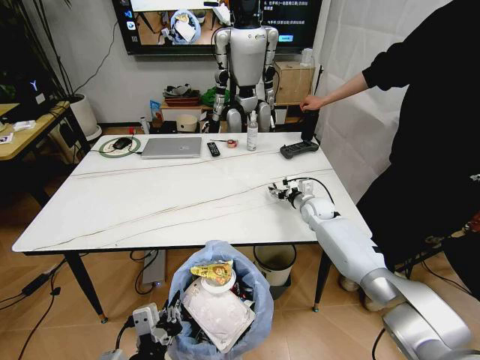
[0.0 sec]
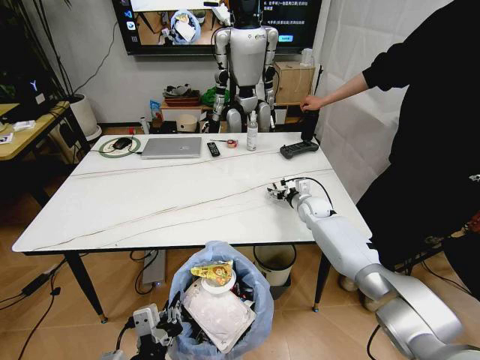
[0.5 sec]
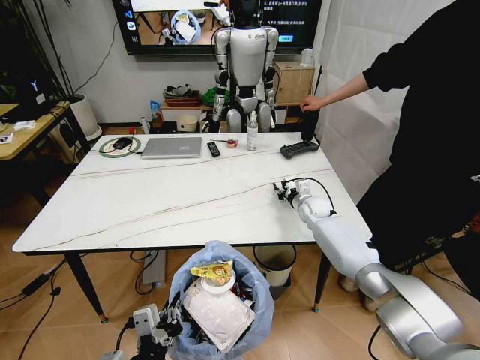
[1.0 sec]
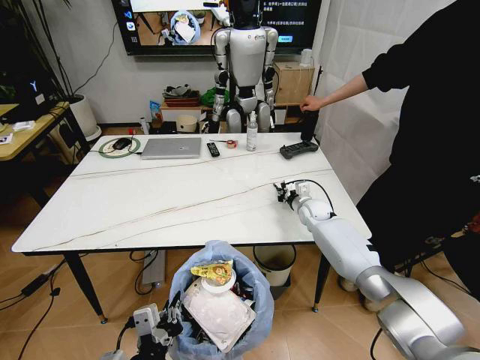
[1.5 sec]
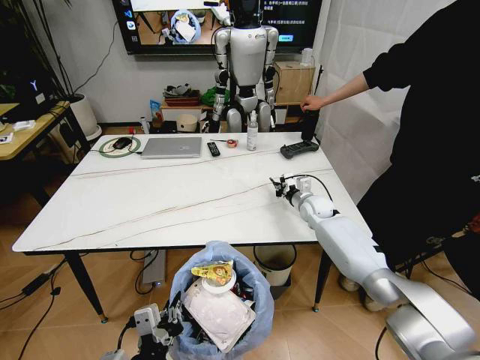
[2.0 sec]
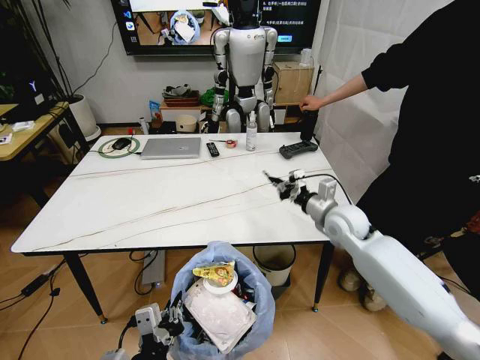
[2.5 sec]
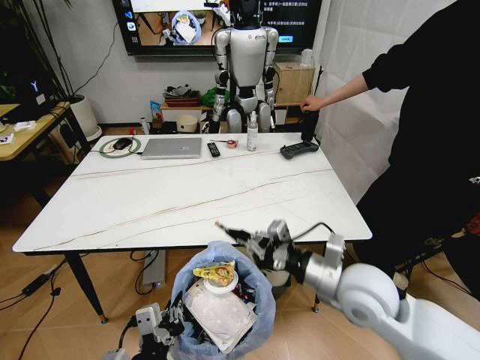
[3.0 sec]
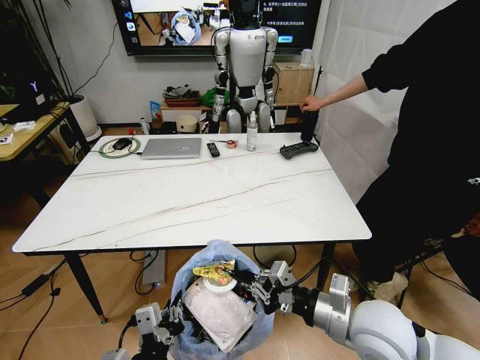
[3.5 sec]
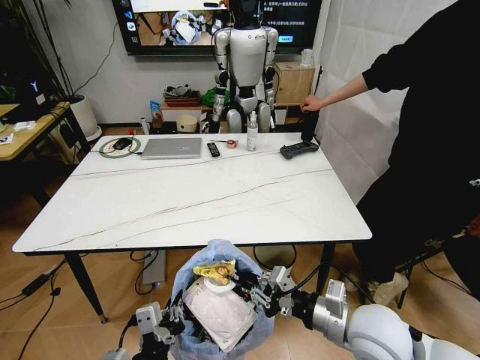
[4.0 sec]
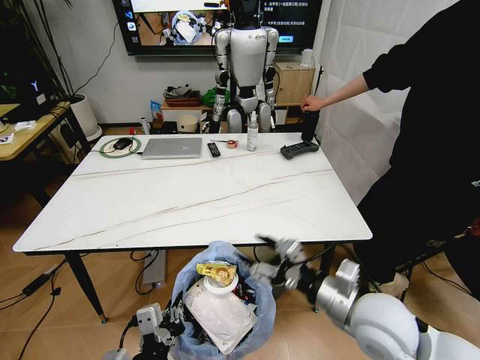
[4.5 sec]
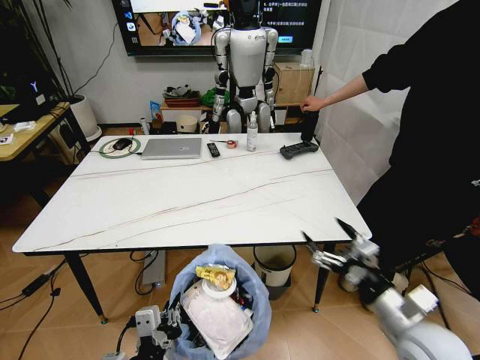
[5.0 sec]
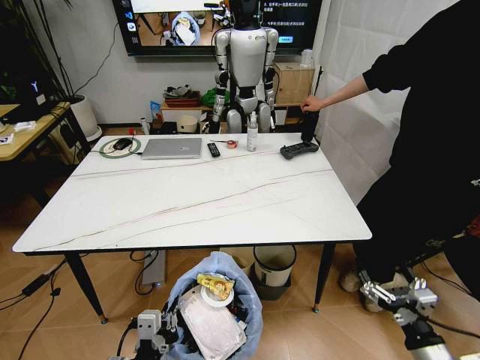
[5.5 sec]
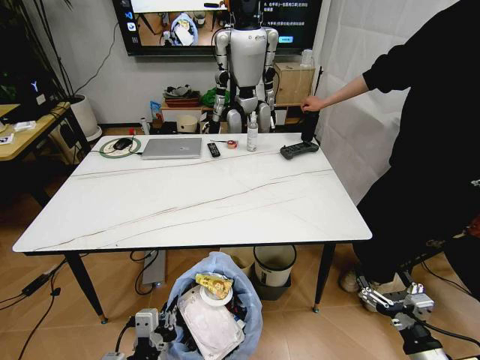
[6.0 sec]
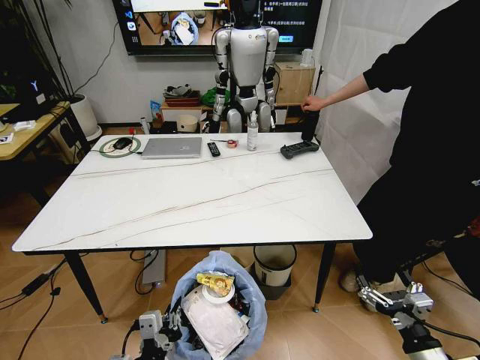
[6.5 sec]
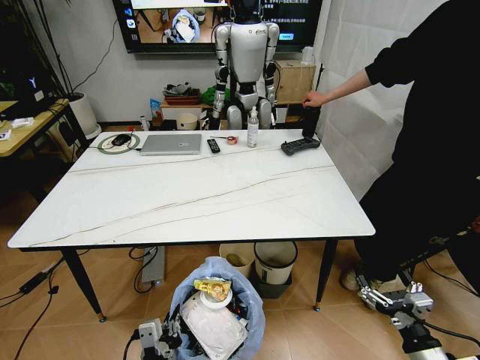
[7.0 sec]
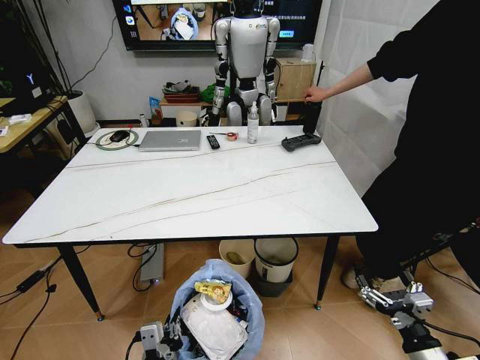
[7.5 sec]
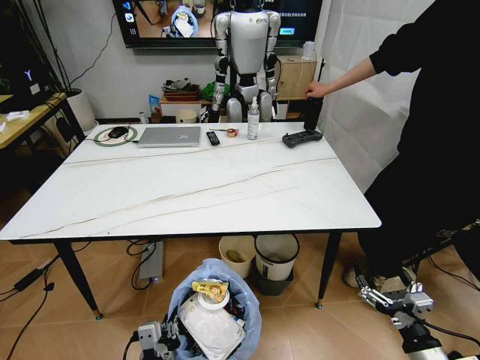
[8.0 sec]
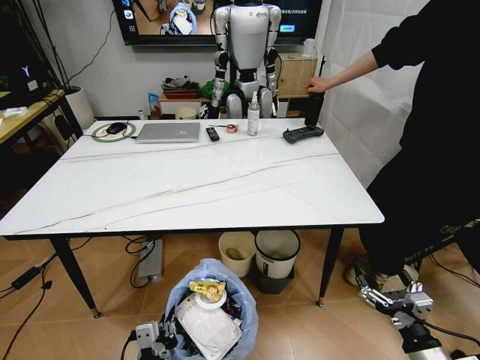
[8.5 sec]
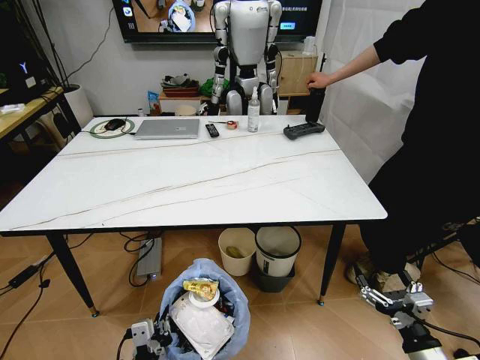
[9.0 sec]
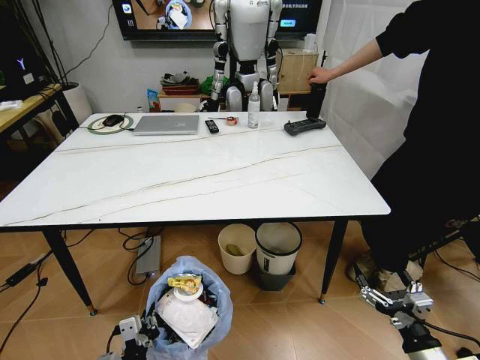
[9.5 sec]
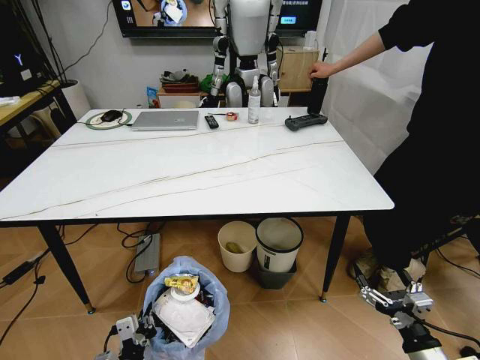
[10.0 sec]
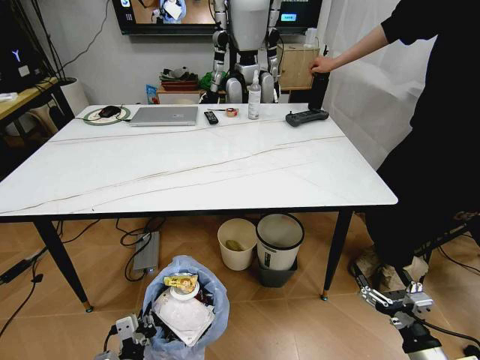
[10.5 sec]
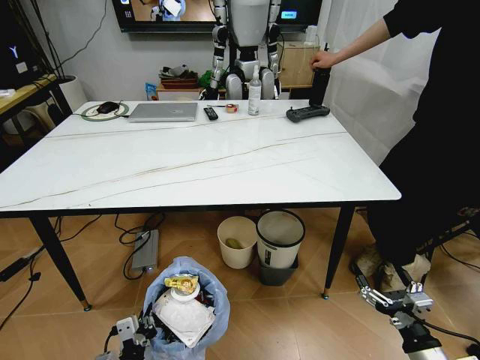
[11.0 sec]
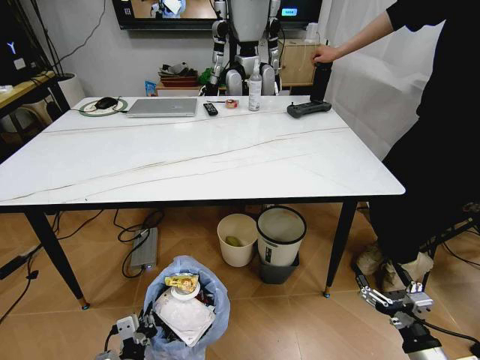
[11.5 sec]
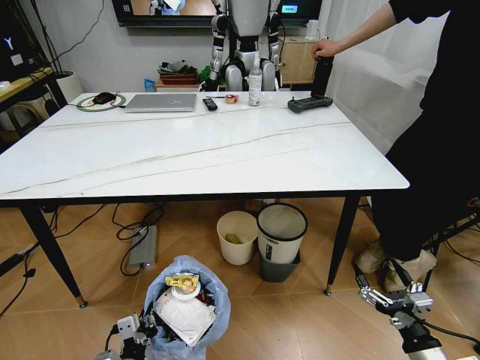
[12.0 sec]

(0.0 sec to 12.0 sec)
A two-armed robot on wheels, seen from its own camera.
Task of the whole recording: Pick up the trash bin and place the trash from the table into it.
0.0 sec - 2.0 sec: The right gripper closes its fingers.
2.0 sec - 4.0 sec: The right gripper goes some 35 cm backward.
4.0 sec - 6.0 sec: The right gripper heads to the right, backward and downward, covering some 20 cm, and opens. Meanwhile the left gripper changes place by approximately 5 cm.
8.0 sec - 10.0 sec: The left gripper goes approximately 5 cm to the left.

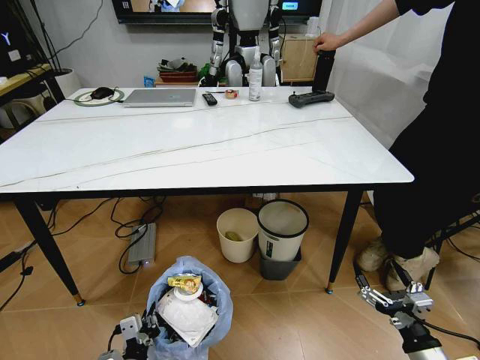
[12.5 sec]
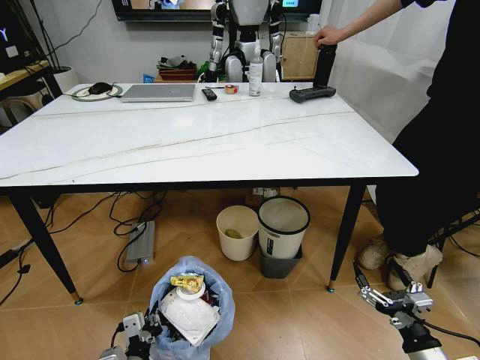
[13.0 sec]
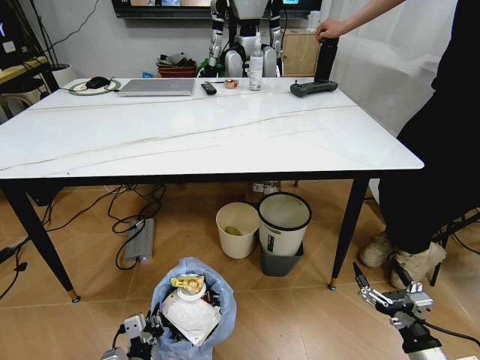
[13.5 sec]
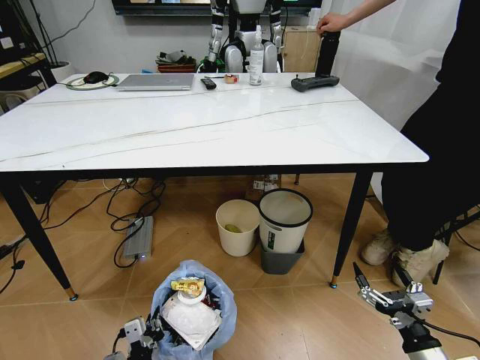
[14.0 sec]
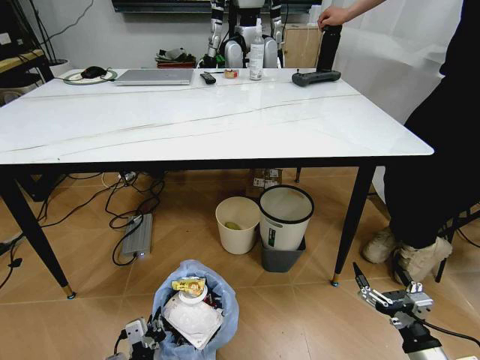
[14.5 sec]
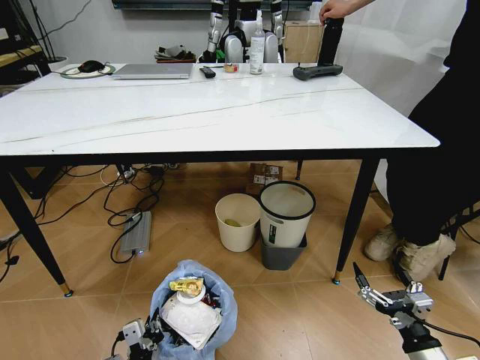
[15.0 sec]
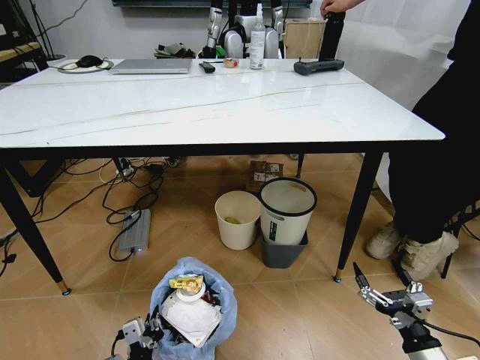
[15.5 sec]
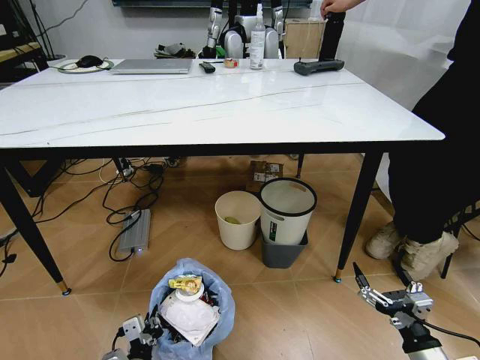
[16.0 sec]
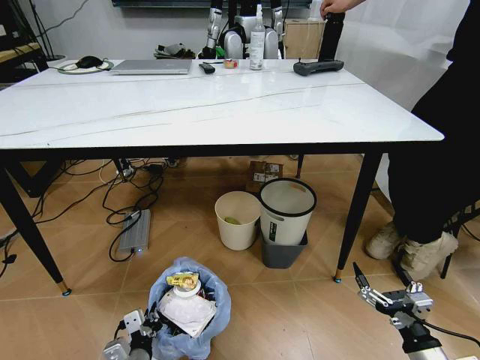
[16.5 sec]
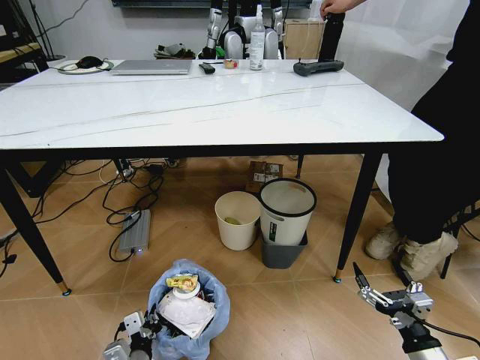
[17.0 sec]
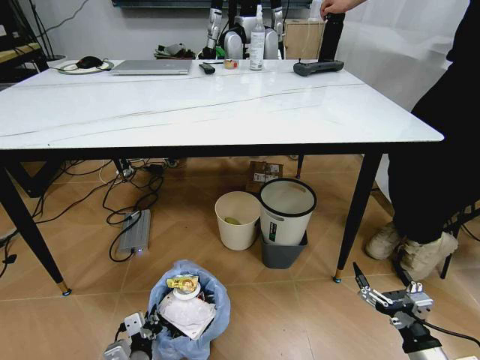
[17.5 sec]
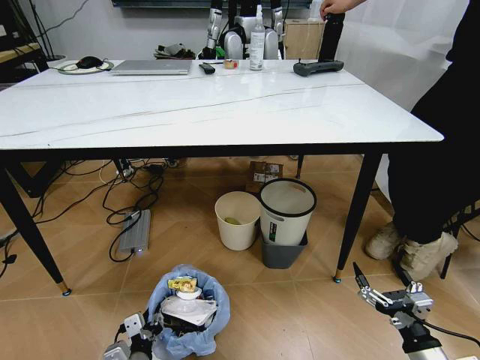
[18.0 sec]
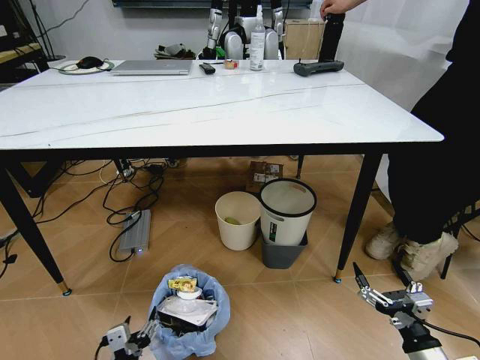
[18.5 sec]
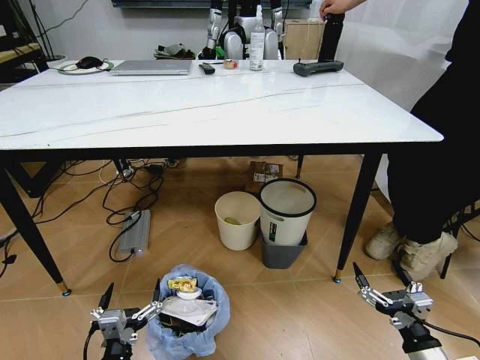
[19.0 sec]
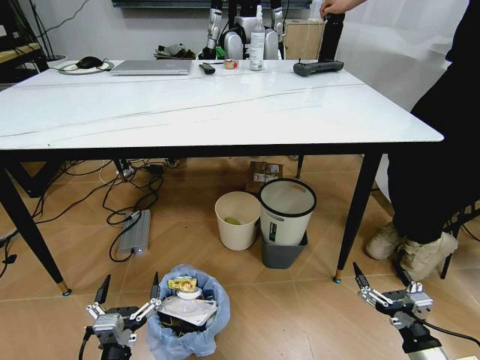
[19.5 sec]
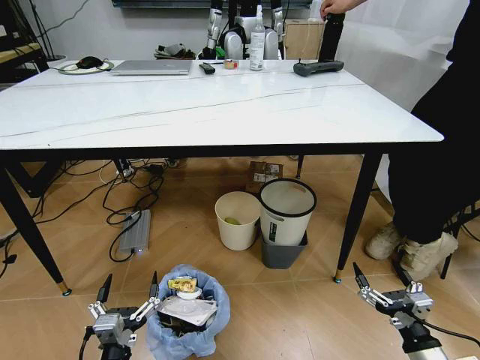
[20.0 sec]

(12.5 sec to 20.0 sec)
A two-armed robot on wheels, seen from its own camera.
Task of the whole recording: Pick up the trash bin and place the trash from the table into it.
16.5 sec - 18.0 sec: The grippers make only small movements.
18.0 sec - 20.0 sec: The left gripper shifts some 10 cm upward and backward, and opens.

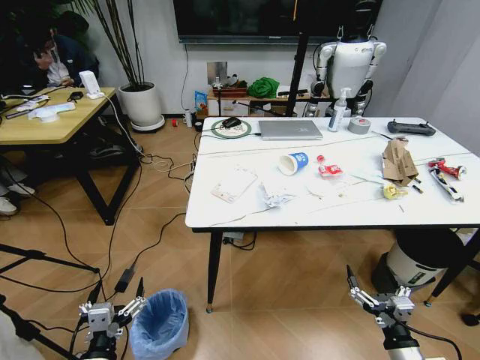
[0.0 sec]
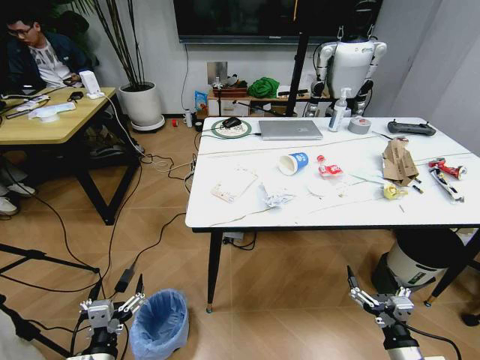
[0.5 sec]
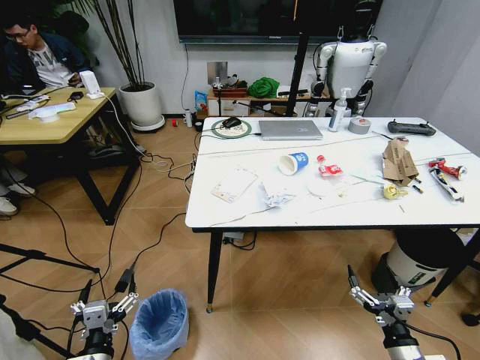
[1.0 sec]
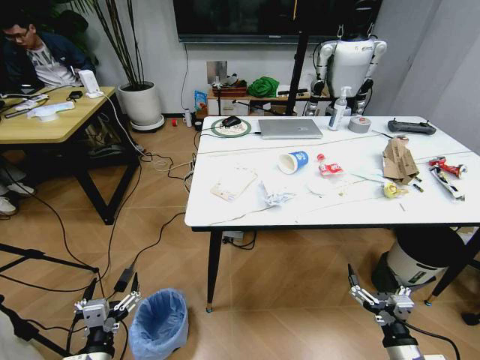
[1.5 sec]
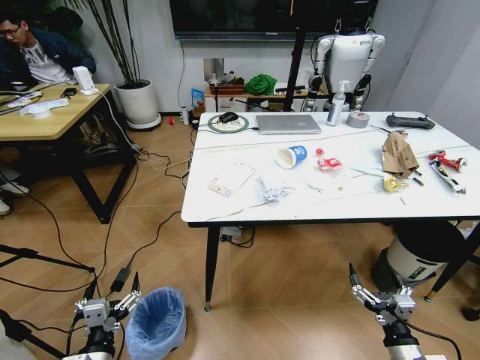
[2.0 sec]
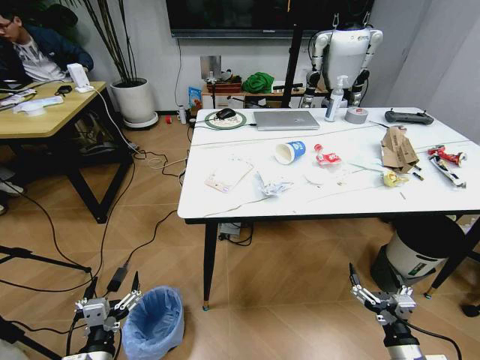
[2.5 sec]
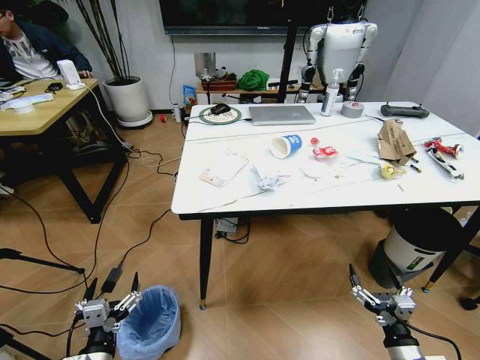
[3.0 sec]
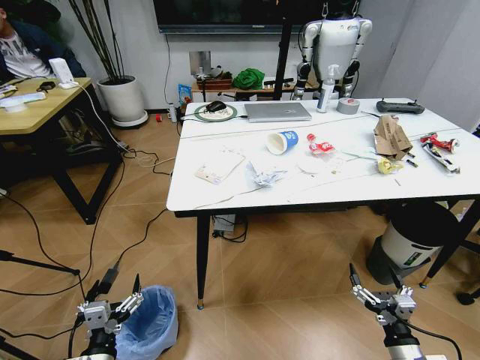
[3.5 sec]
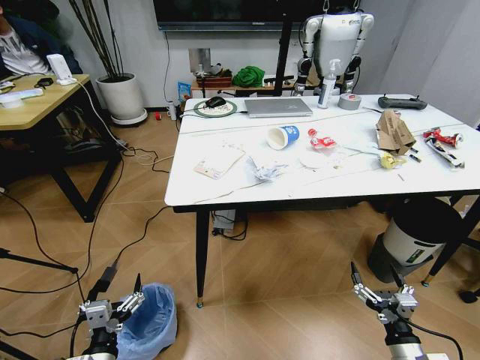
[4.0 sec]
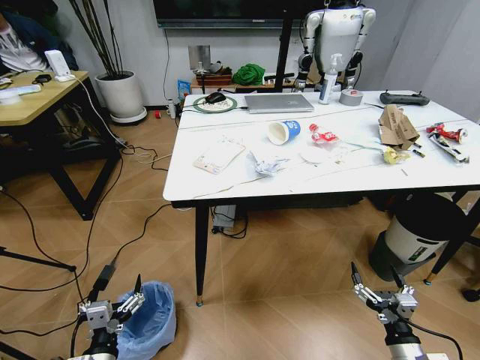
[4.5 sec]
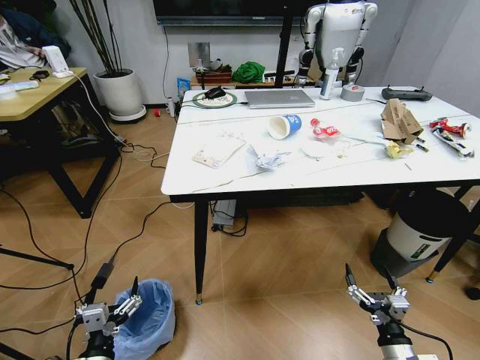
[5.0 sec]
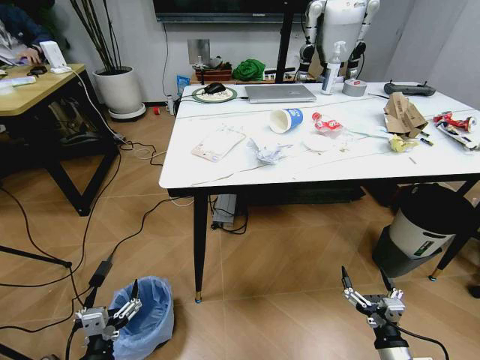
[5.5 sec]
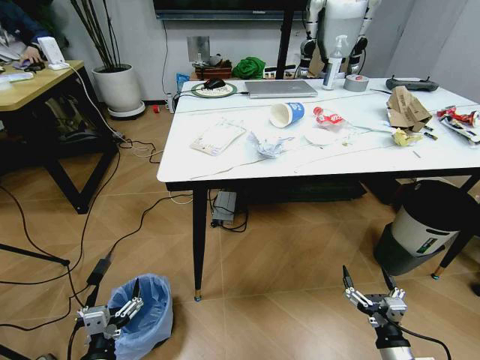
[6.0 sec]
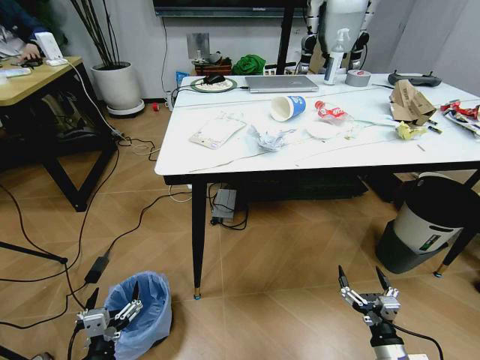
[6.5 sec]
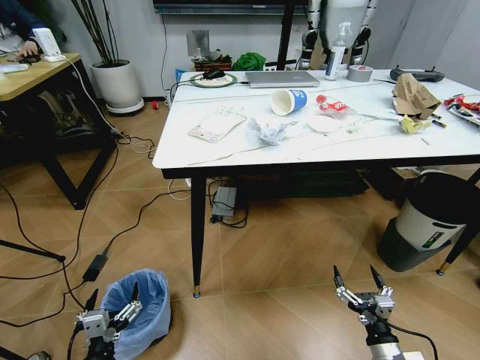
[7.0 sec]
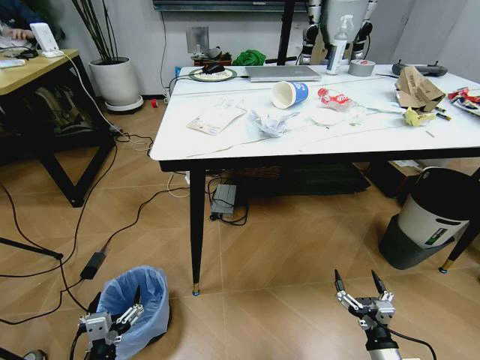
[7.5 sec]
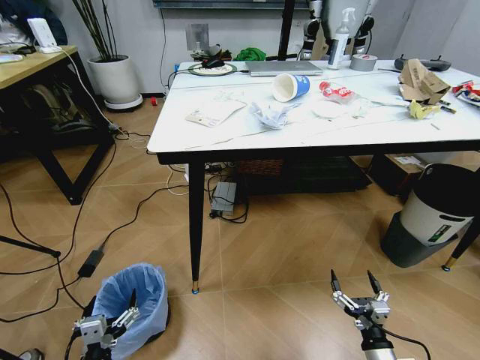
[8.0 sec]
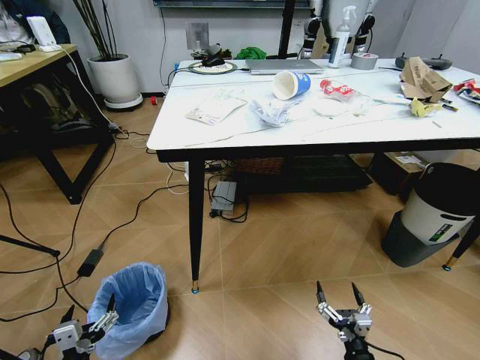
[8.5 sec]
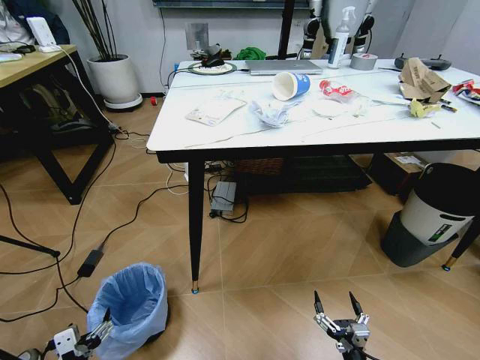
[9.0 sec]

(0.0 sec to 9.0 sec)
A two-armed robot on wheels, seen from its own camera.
Task of the whole recording: Pick up the trash bin and place the trash from the table into it.
7.0 sec - 9.0 sec: The right gripper heads downward and to the left, covering some 10 cm; the left gripper moves to the left, about 5 cm.
